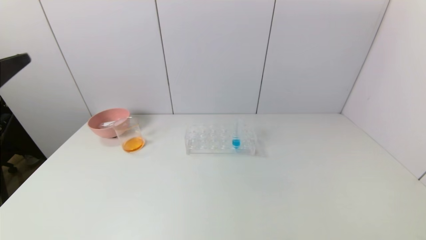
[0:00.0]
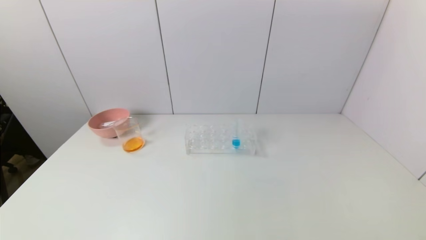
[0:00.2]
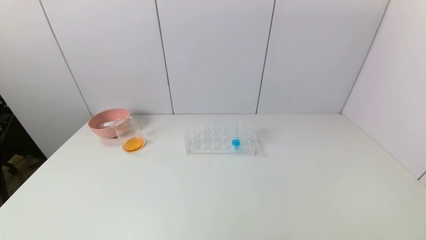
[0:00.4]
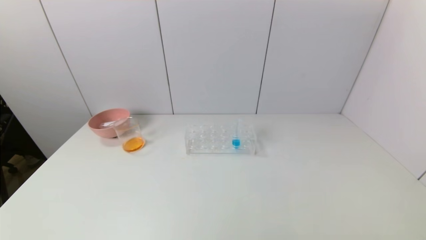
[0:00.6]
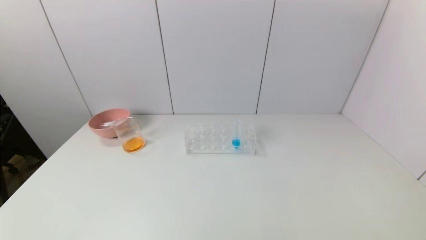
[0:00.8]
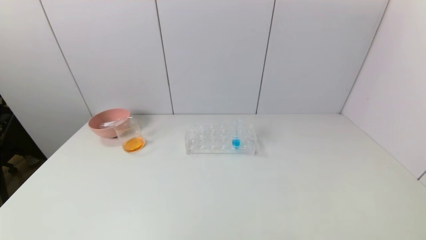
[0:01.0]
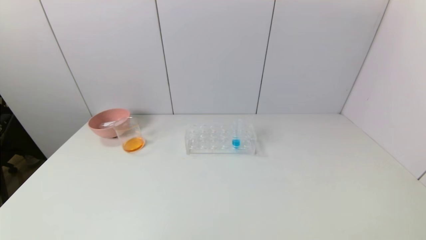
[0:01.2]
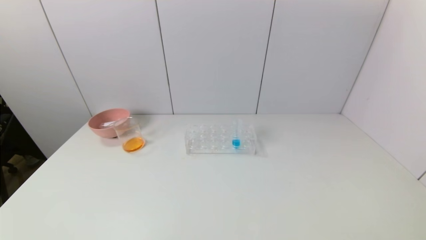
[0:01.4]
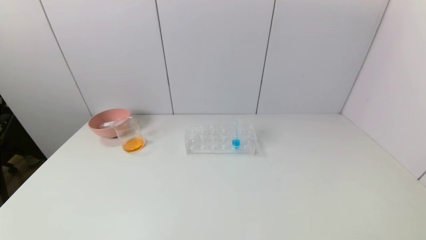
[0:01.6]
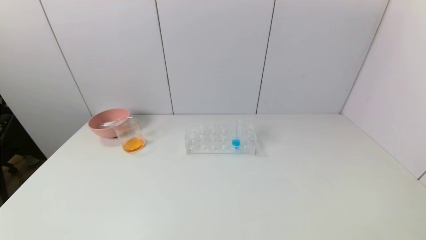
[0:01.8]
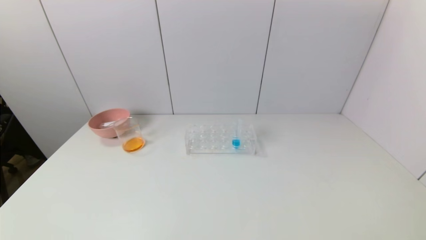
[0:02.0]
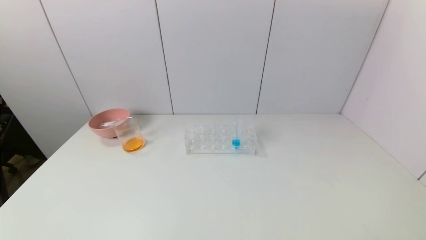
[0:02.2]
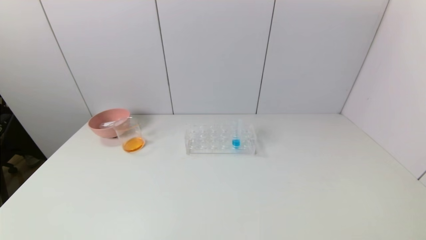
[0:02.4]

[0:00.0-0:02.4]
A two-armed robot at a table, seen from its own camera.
Task of the whole recording: pick up the test tube with yellow pigment and the test tube with red pigment by grippers and pour them into the beaker.
0:00.0 to 0:01.2: The left gripper moves downward and backward, approximately 25 cm.
